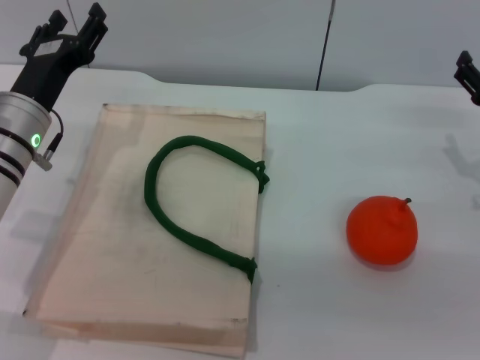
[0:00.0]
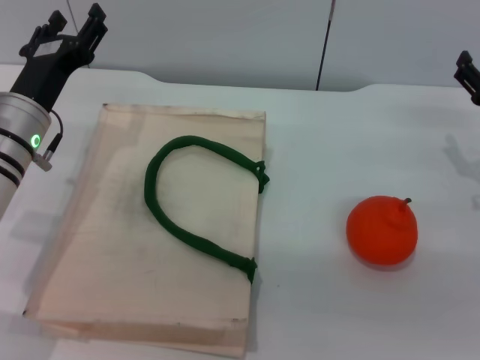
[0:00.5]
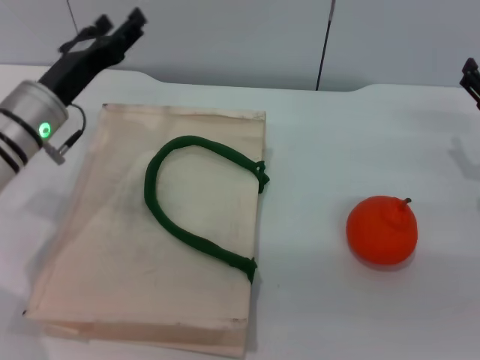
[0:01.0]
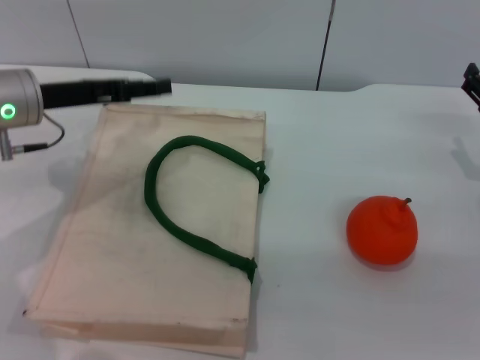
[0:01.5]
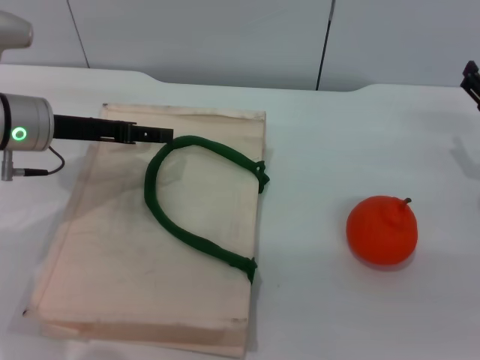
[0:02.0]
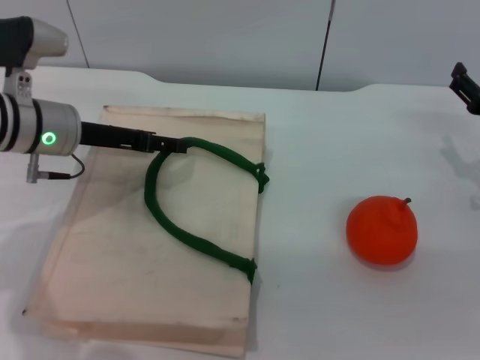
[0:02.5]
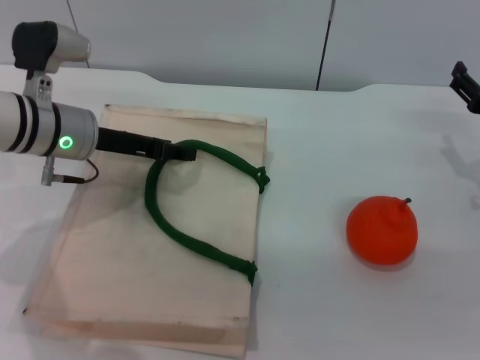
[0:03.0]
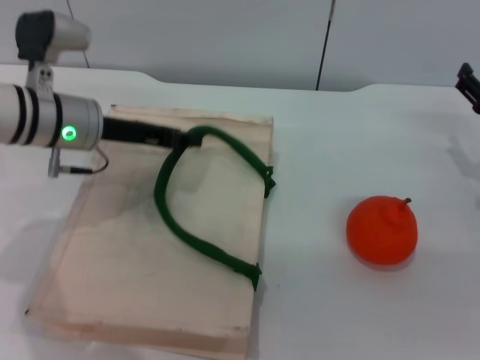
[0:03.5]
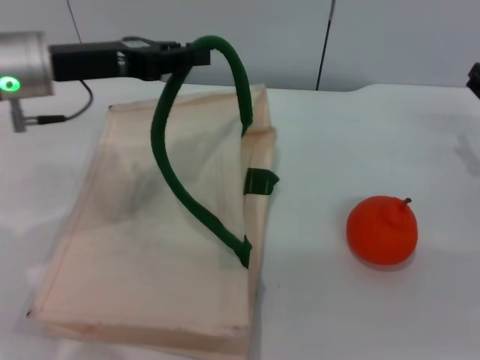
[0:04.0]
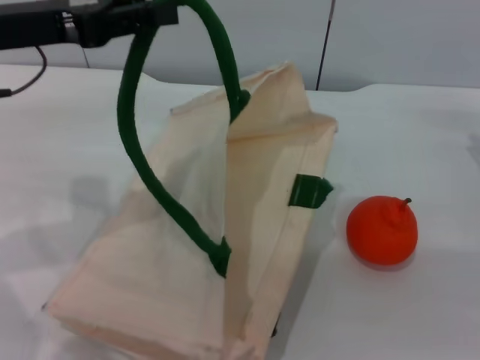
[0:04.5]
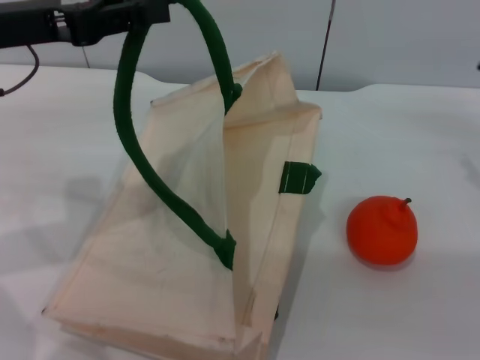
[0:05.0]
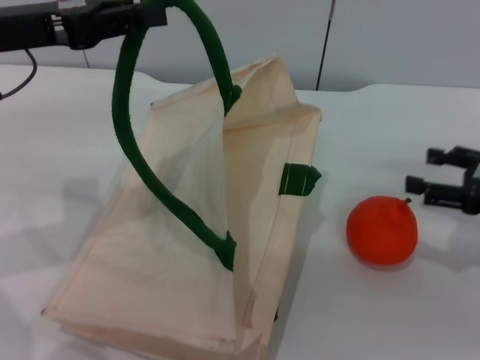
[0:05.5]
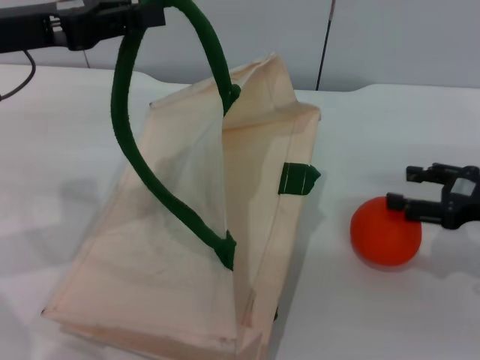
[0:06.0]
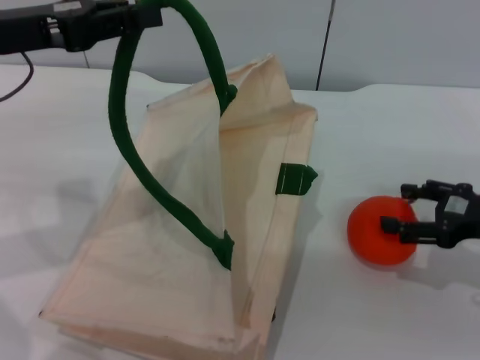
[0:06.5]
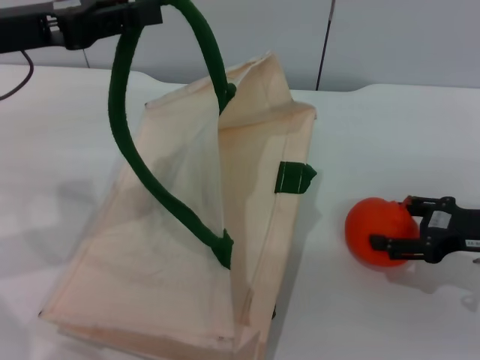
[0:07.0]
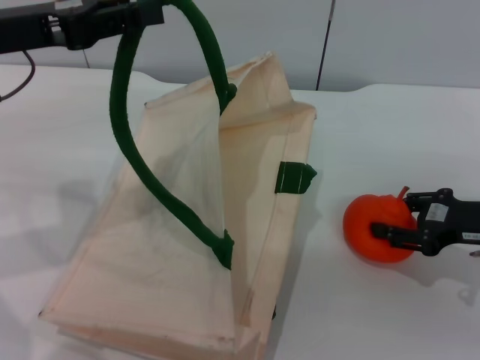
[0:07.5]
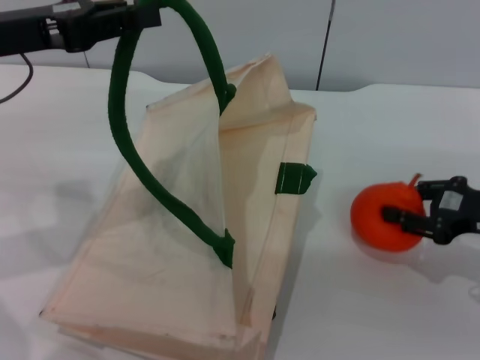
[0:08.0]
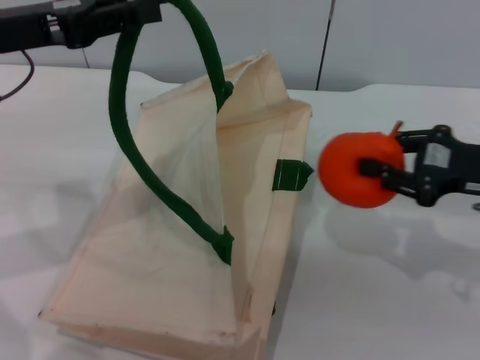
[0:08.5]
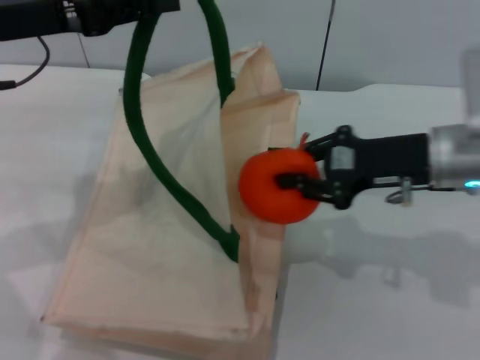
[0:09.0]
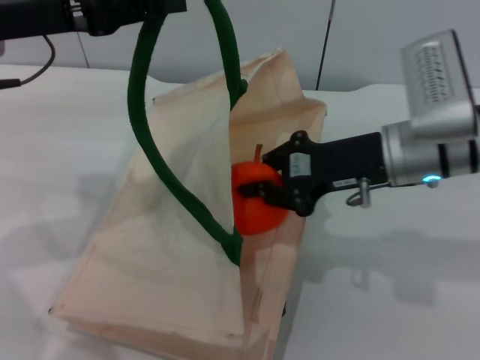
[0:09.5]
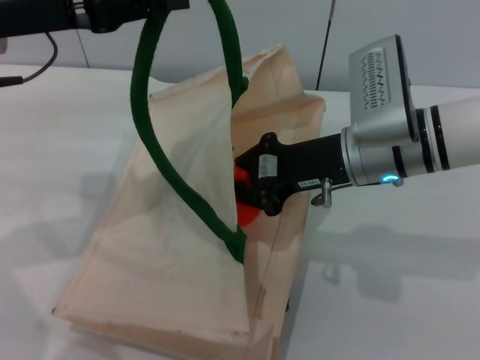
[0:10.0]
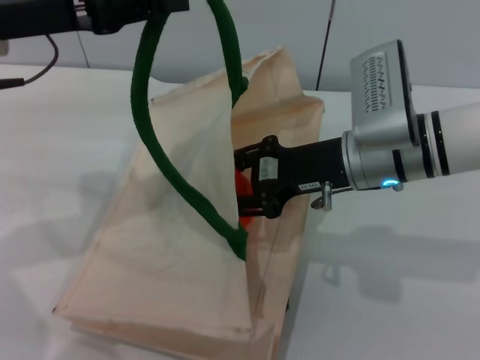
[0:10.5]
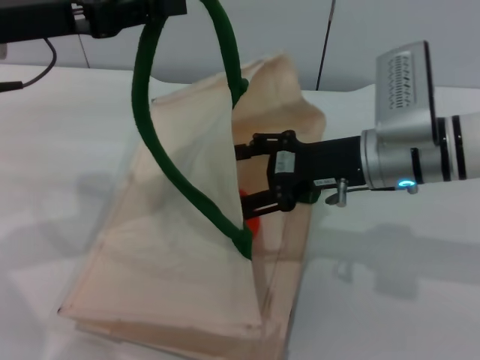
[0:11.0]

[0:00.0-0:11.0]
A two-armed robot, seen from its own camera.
Task of the whole recording: pick up the orange from the table and place it in the white handbag.
Step, 0:00.0 to 0:04.5: Lift the woven bag with the left gripper to open it.
Step, 0:05.0 to 0:08.0: Pick up the orange with the right gripper.
0:00.0 to 0:02.0: The left gripper ends up about 5 cm from where it was.
0:02.0 to 0:03.5: The left gripper closes up.
0:03.5 to 0:05.5: The left gripper travels upward and to the left by about 10 cm. The right gripper shifts by approximately 5 cm.
0:05.5 to 0:07.5: The grippers move only a little.
0:07.5 to 0:09.0: The right gripper shifts approximately 10 cm to the left and upward, and closes its fingers.
0:09.0 to 0:11.0: The right gripper moves to the left, some 5 cm, and opens.

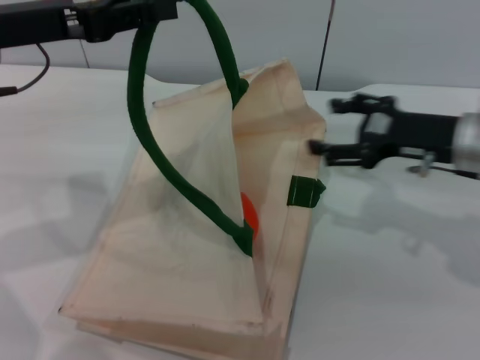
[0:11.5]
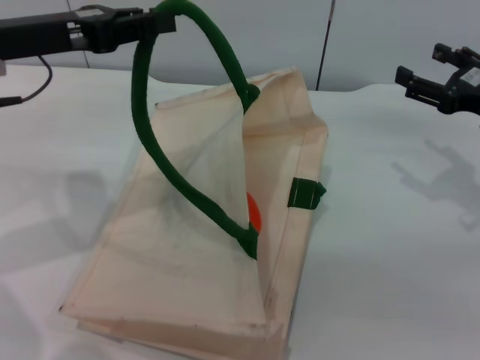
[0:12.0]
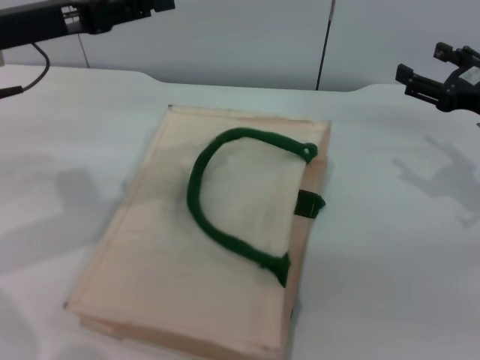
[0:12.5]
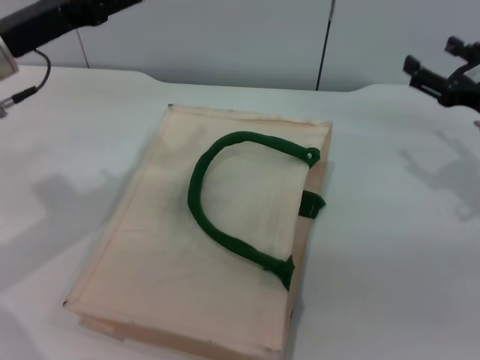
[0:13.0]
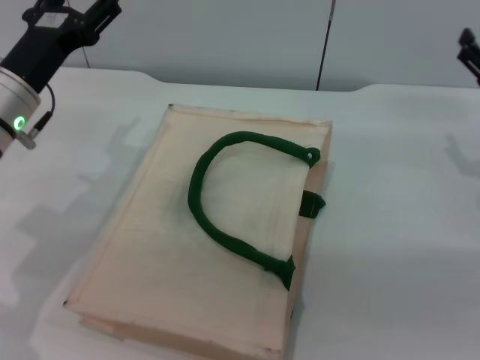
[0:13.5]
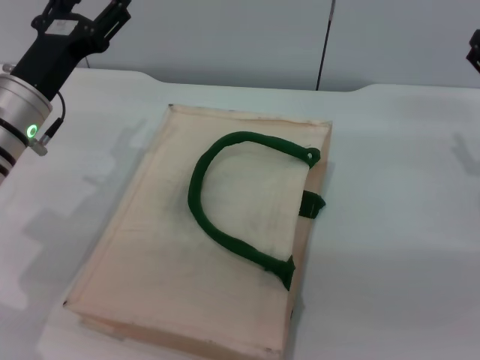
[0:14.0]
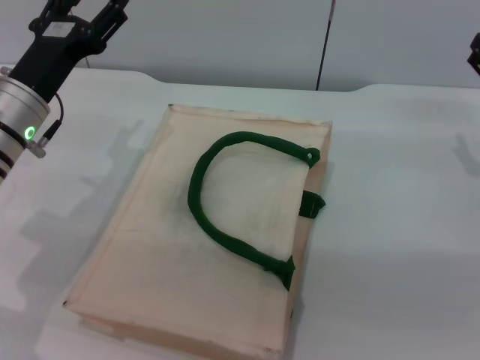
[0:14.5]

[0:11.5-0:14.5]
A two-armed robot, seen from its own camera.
Task of the whole recording: pick up the orange from the table and place it in the white handbag.
Step, 0:12.0 to 0:14.0: Lower the woven bag with the left gripper to close it.
0:11.5 to 0:13.0: The left gripper opens, while the right gripper heads to the right, covering roughly 5 cm.
0:13.0 to 0:14.5: The left gripper is displaced downward by roughly 5 cm.
